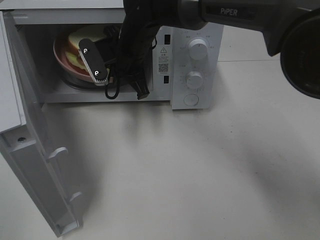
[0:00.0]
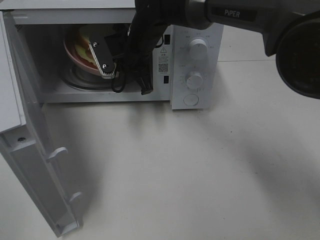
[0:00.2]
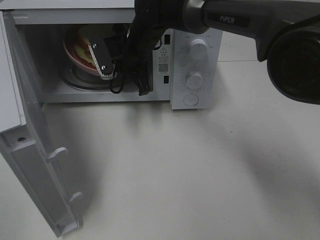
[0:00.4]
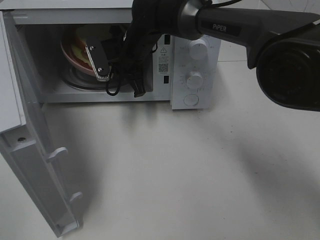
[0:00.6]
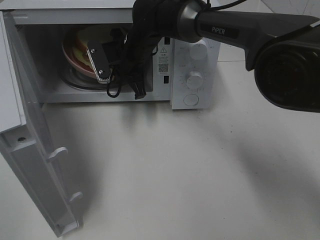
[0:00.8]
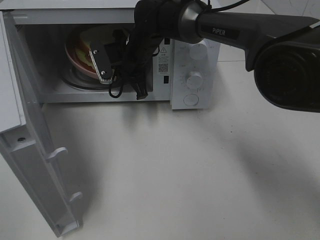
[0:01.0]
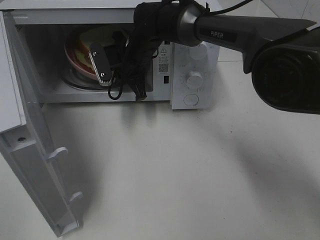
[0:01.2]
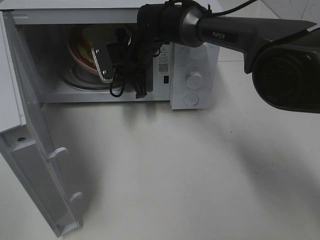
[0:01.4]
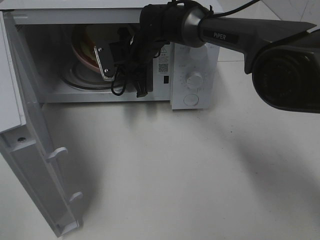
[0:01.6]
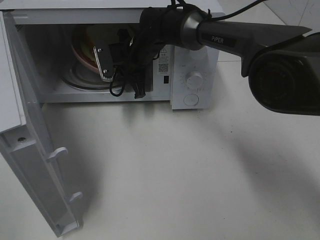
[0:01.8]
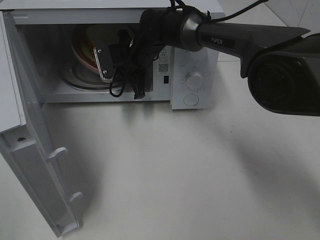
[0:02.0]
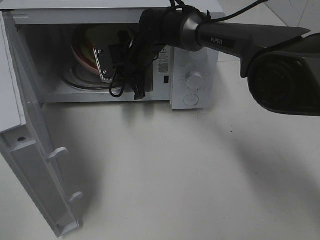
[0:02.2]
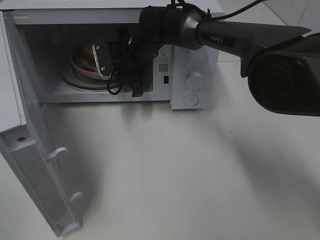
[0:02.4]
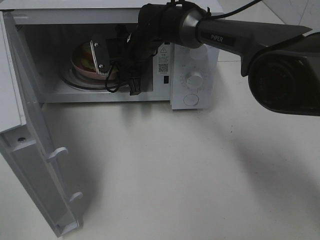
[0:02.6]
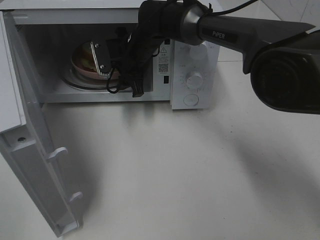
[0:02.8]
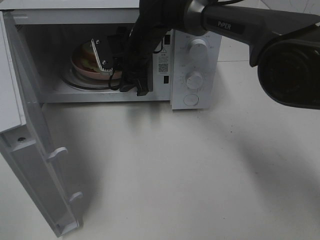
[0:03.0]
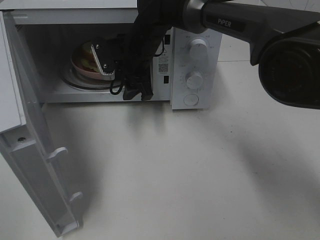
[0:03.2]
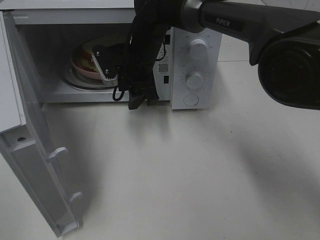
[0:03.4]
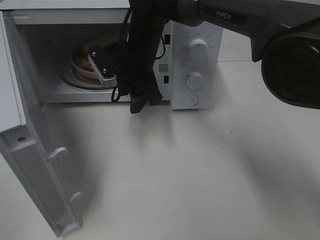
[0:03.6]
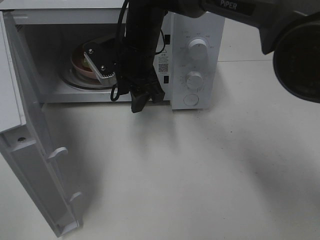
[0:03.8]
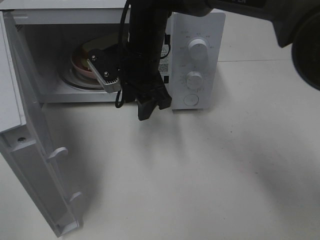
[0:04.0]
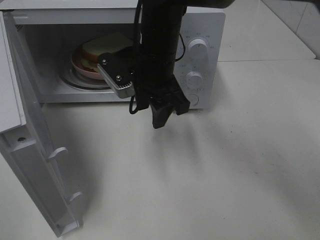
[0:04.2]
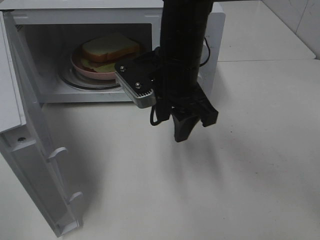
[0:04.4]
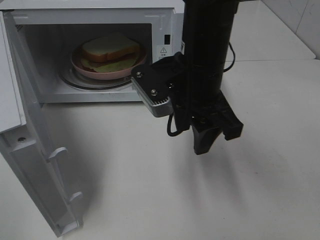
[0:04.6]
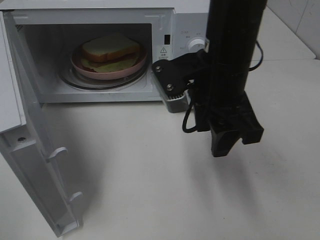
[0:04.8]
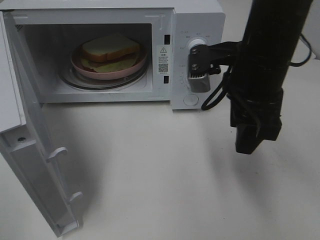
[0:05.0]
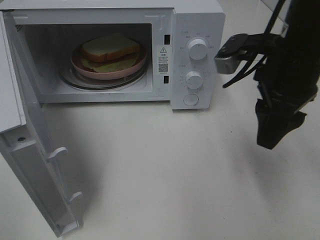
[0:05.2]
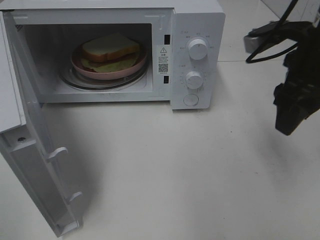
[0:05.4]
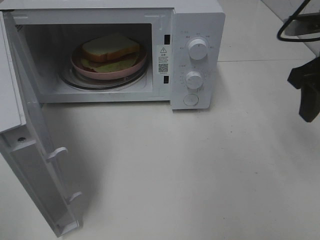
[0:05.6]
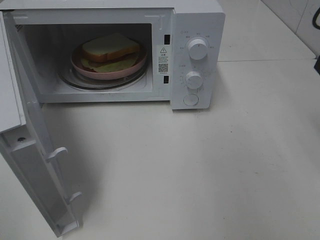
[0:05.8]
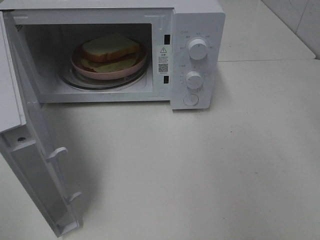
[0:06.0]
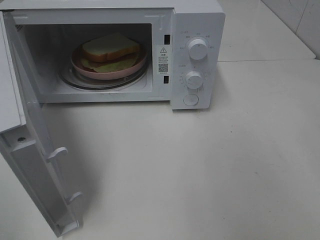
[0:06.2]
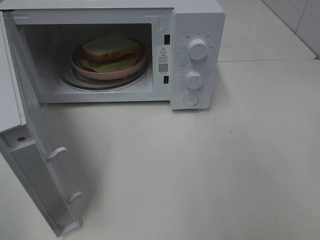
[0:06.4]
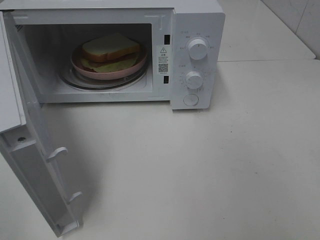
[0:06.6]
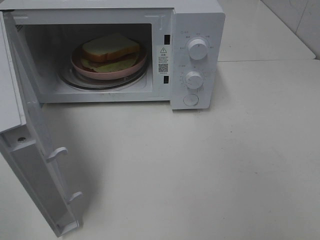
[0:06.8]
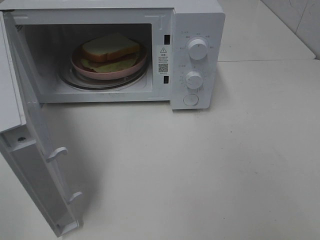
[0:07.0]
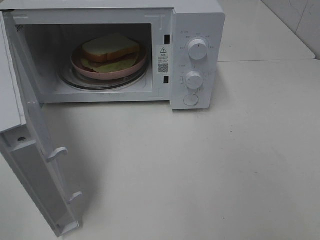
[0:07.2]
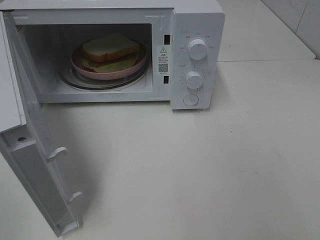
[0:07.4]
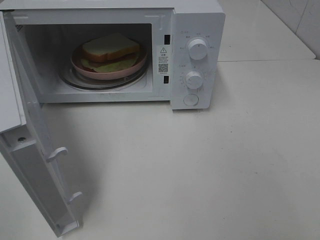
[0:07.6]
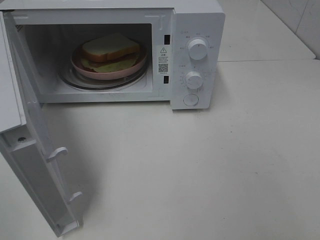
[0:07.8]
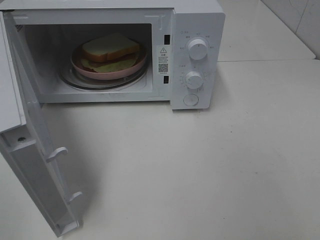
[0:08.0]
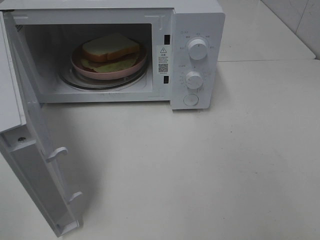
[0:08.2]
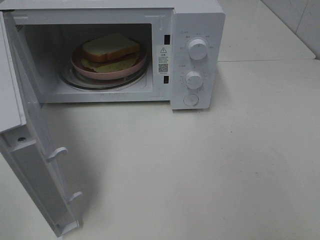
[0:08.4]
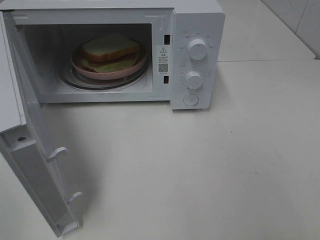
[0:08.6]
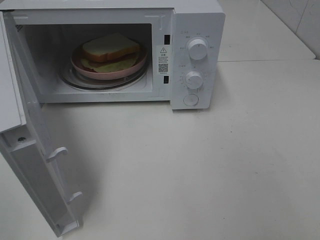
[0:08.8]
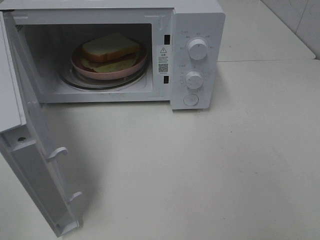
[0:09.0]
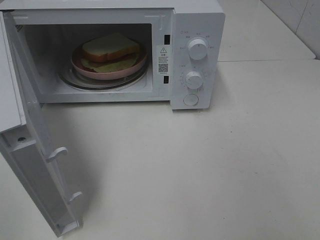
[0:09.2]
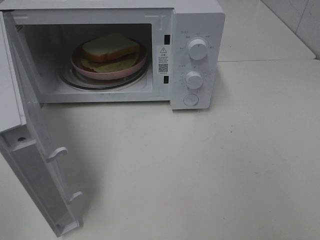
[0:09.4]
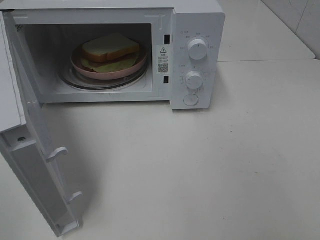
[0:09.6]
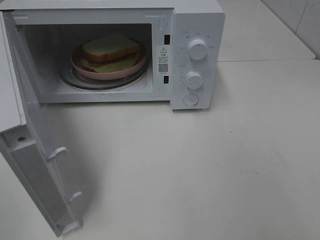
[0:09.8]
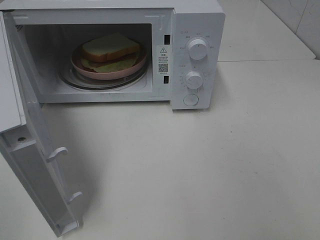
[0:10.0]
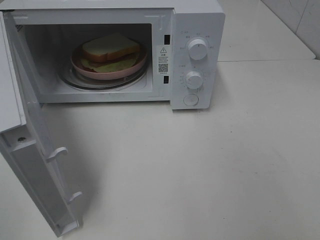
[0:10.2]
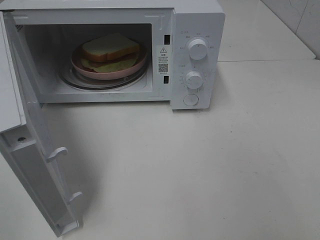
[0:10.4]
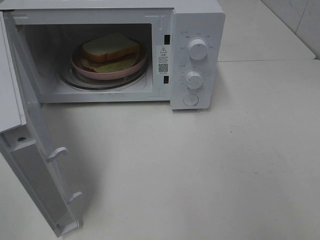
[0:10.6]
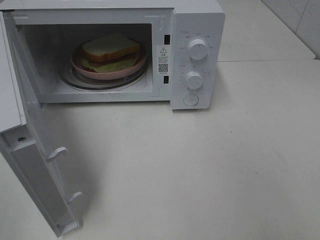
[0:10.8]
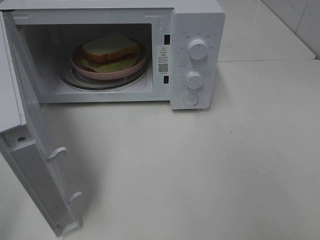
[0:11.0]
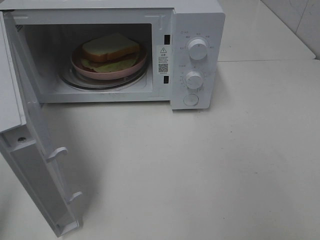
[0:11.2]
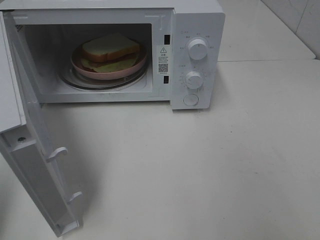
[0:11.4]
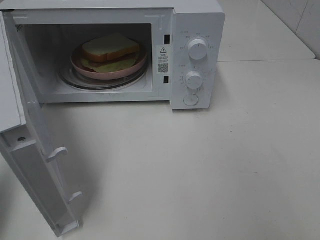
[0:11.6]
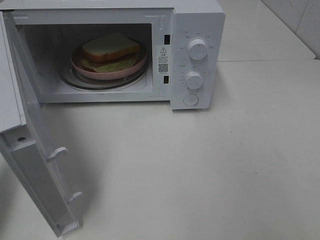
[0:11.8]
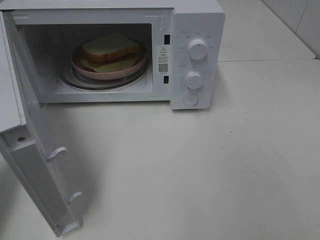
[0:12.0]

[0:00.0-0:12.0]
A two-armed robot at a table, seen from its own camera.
Task of the whole recording: Heat Sandwich.
Step, 0:00.0 to 0:02.8: Right hand: place the plate in the microwave.
0:00.0 to 0:01.6: The right gripper is displaced forward by roughly 5 cm.
0:01.6 to 0:03.0: The right gripper opens its fingers.
0:03.0 to 0:04.4: The right gripper goes approximately 15 cm backward and to the right.
0:04.4 to 0:06.0: The right gripper is displaced to the right by roughly 30 cm.
0:07.6 to 0:10.4: Both grippers stay about where they are.
0:10.4 to 0:12.0: The left gripper heads forward, covering roughly 20 cm, and closes its fingers.

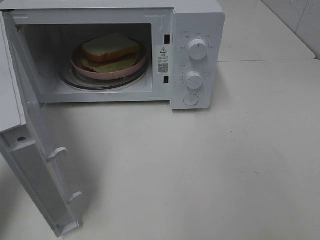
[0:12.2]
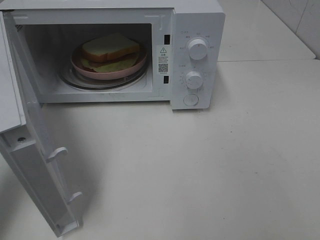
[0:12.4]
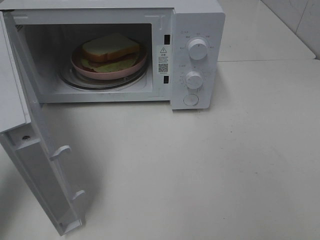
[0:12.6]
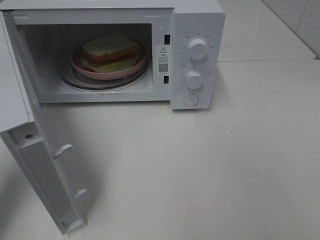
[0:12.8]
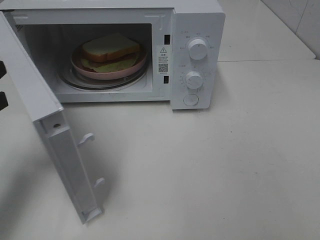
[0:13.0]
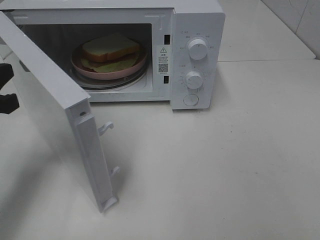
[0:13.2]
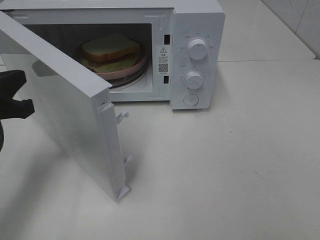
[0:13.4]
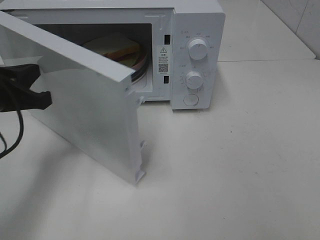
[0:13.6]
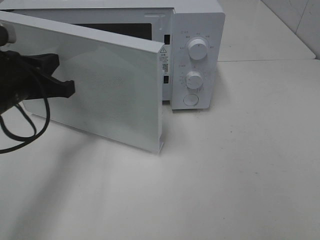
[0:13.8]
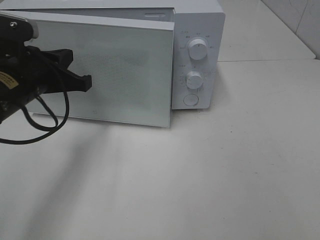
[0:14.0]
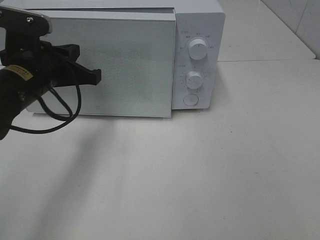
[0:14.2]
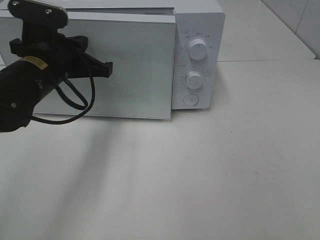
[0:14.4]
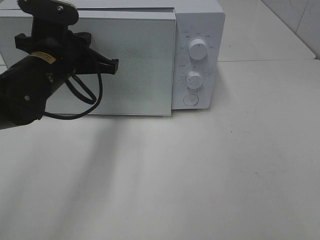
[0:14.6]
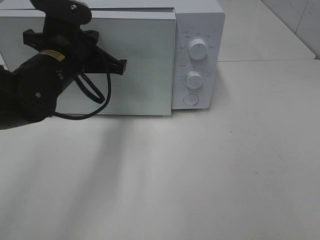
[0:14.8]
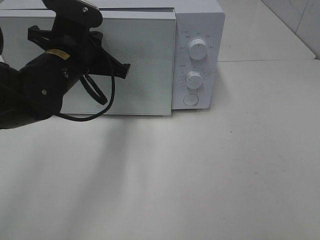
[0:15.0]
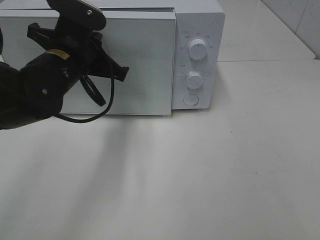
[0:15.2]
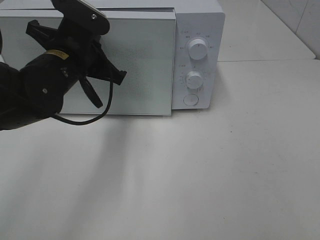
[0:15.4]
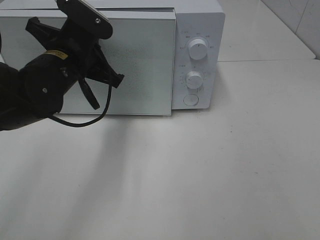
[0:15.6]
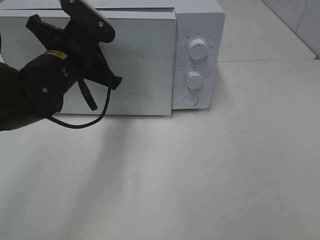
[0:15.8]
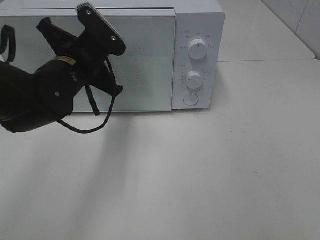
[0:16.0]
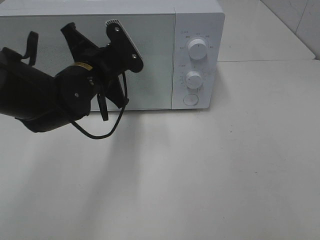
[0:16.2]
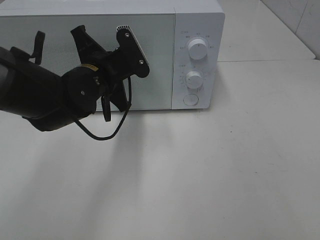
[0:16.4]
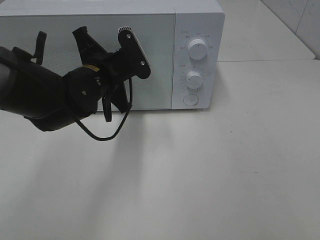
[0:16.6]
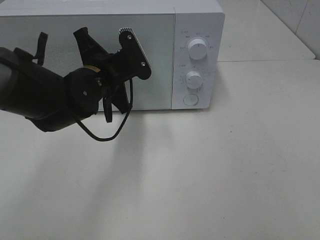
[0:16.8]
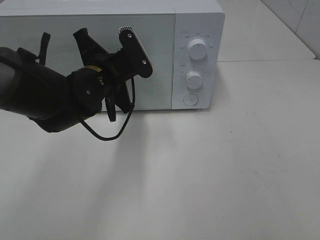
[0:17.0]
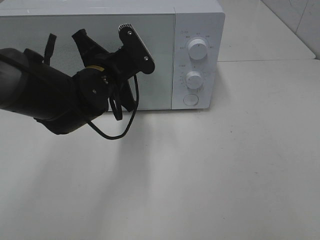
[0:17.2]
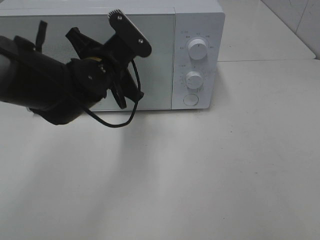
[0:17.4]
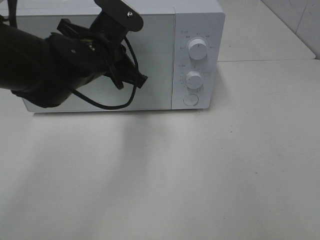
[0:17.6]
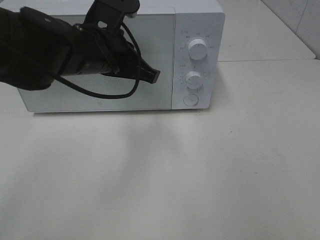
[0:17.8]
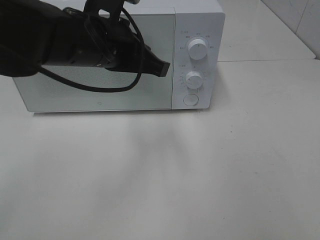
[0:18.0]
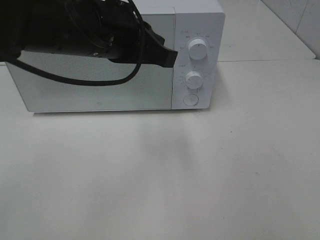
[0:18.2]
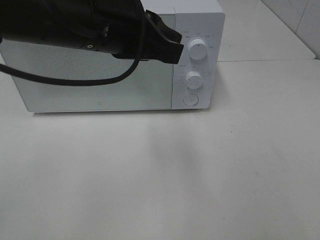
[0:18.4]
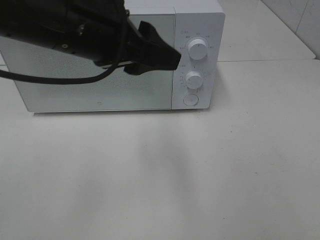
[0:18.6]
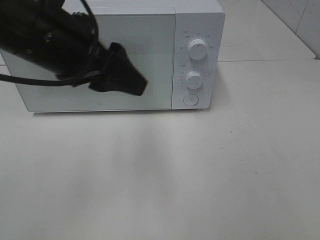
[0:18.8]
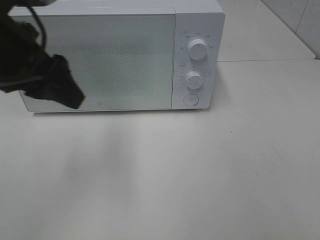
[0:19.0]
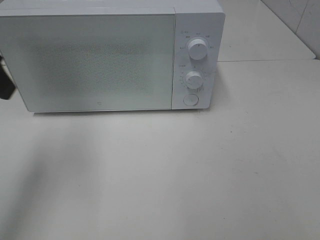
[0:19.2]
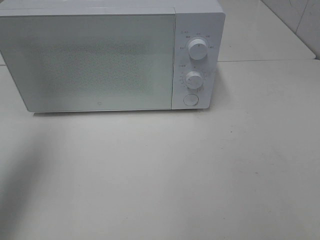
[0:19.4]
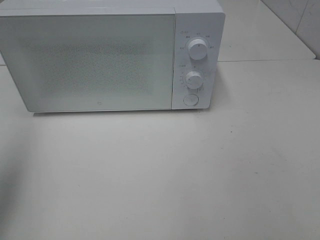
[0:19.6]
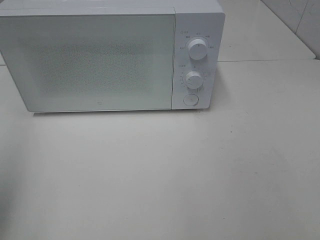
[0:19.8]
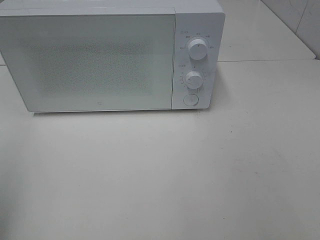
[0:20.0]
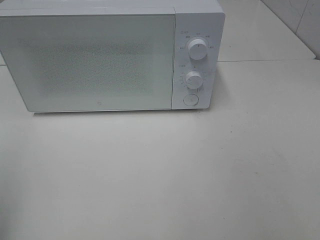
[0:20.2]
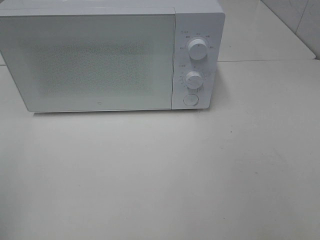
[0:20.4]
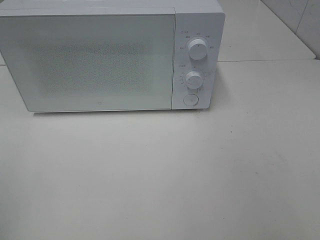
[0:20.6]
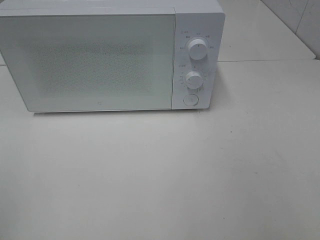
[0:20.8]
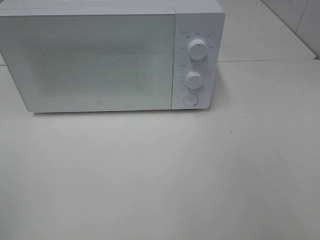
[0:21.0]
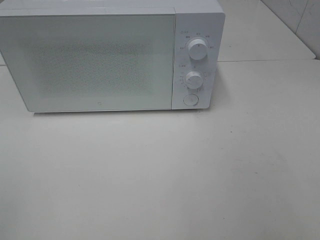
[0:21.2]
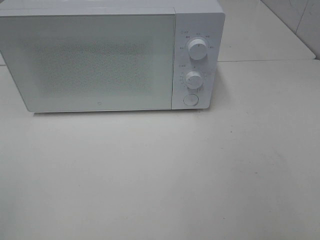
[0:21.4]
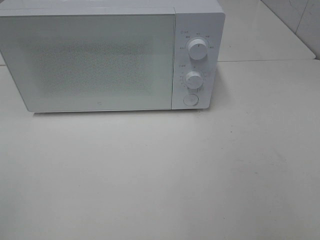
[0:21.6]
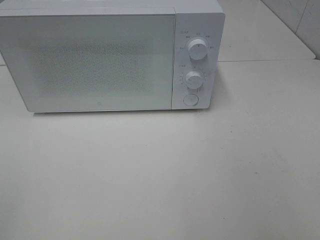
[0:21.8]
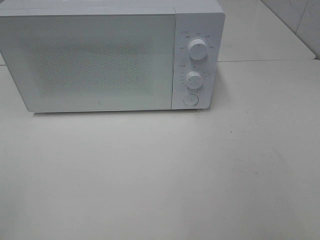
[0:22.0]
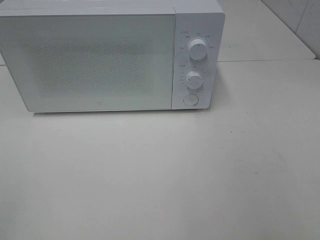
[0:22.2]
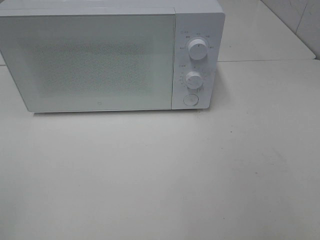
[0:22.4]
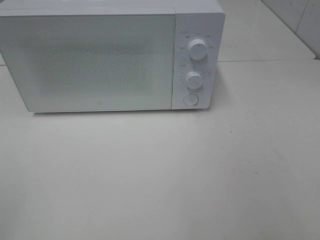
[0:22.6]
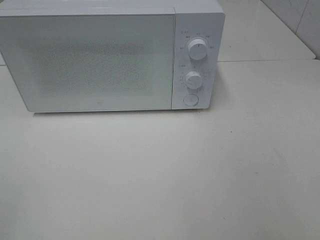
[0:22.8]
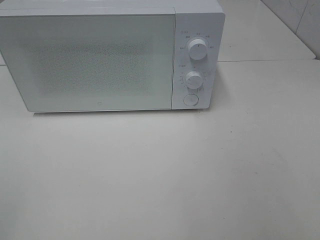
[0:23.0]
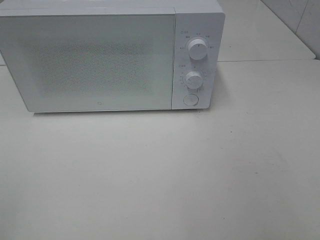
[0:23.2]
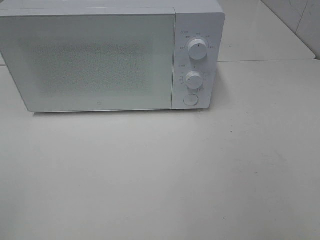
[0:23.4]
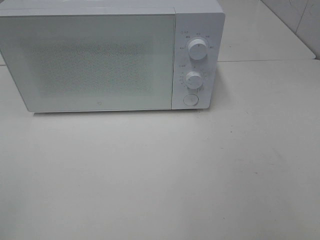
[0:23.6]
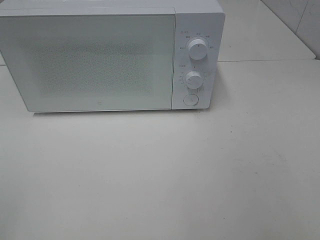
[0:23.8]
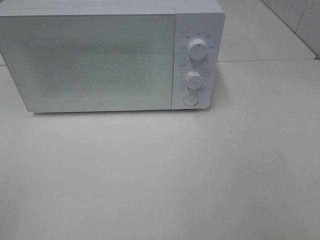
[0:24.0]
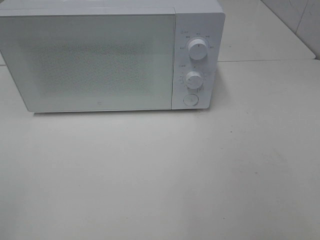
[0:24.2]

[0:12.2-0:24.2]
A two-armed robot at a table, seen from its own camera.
Task of the whole recording: Heat Sandwich.
Step, 0:12.2 to 0:17.6: Left hand: close the microwave door.
0:12.2 to 0:13.8: The left gripper goes roughly 10 cm to the right and forward.
0:13.8 to 0:15.2: The left gripper shifts approximately 10 cm to the right.
0:15.2 to 0:16.6: The left gripper moves some 5 cm.
0:16.6 to 0:18.2: The left gripper moves upward and backward, approximately 15 cm.
0:18.2 to 0:19.8: The left gripper is displaced to the left by about 30 cm, and opens its fingers.
0:19.8 to 0:21.2: The left gripper travels backward by roughly 15 cm.
0:22.6 to 0:24.2: The two grippers keep their place.
